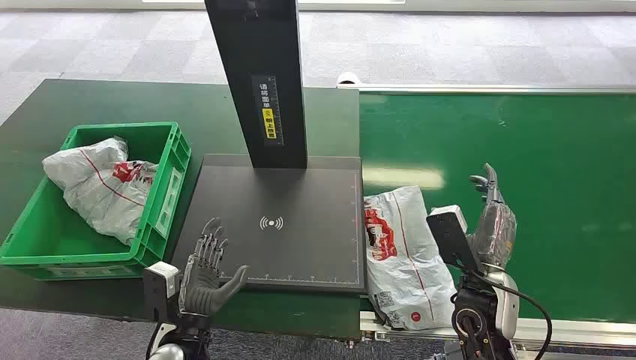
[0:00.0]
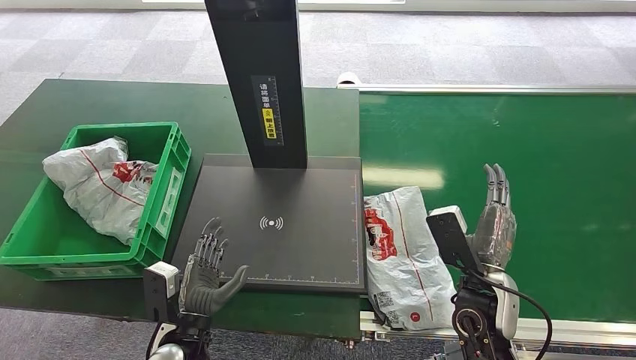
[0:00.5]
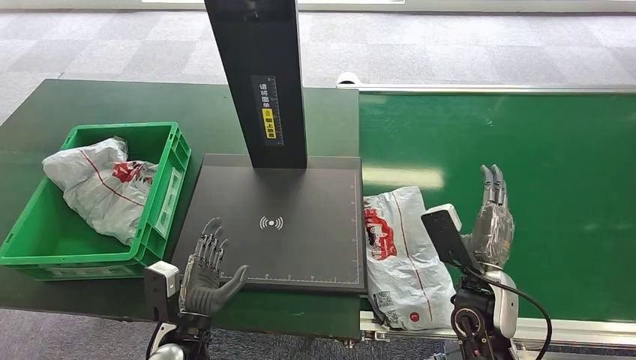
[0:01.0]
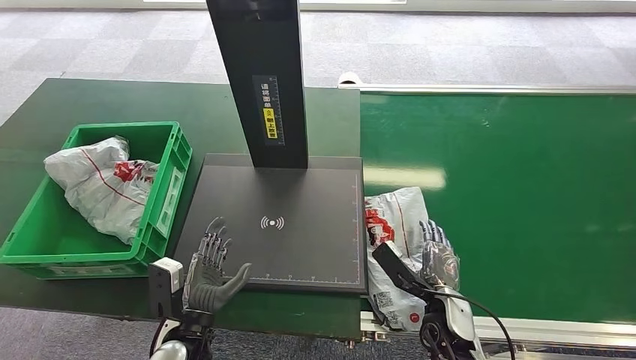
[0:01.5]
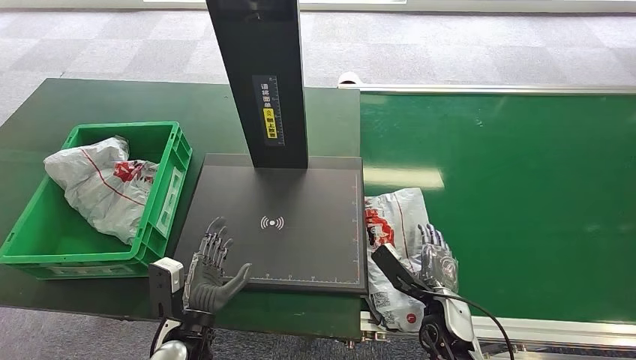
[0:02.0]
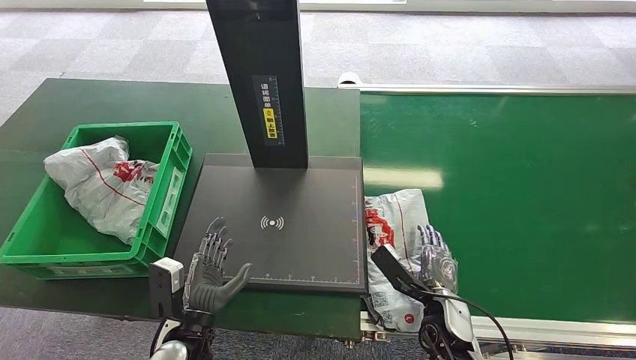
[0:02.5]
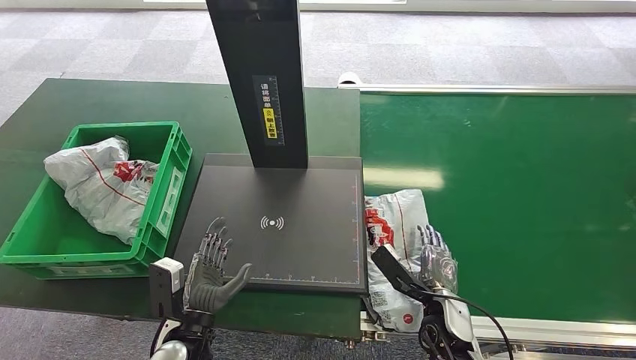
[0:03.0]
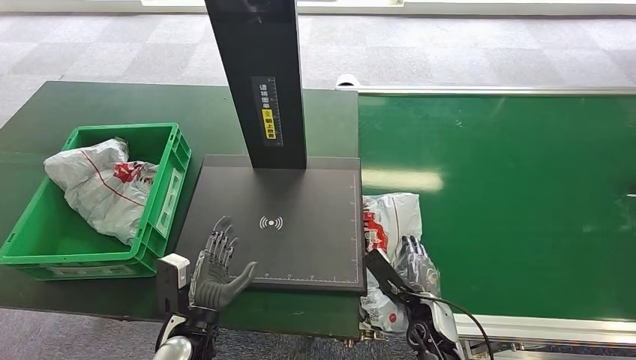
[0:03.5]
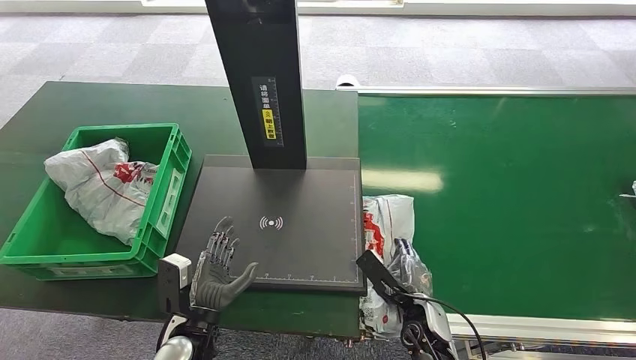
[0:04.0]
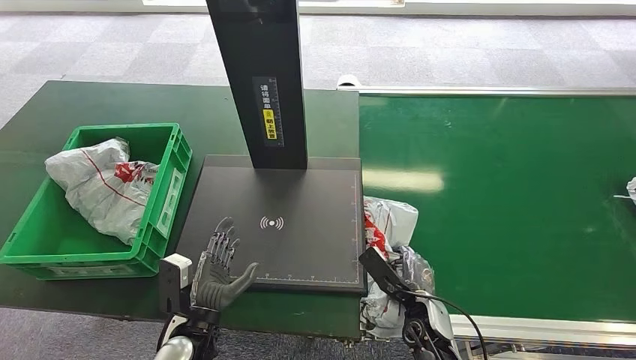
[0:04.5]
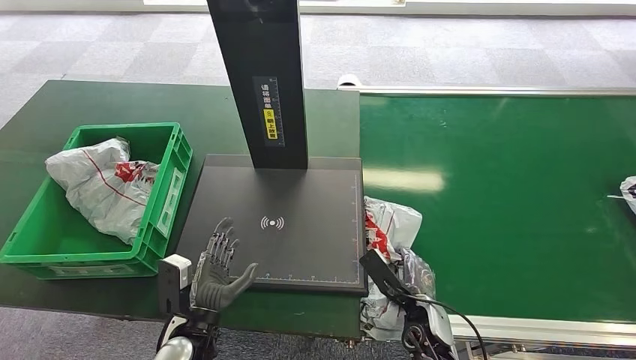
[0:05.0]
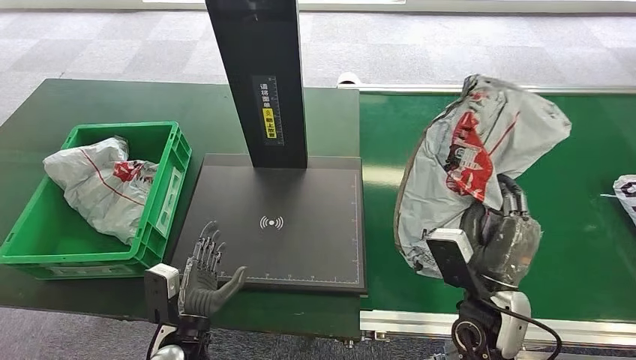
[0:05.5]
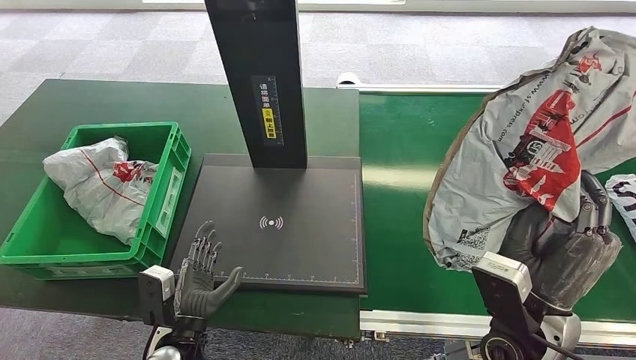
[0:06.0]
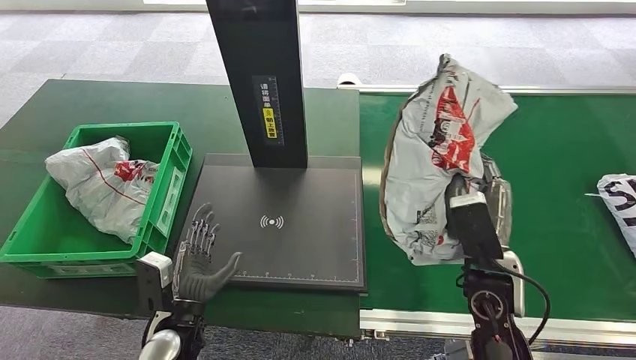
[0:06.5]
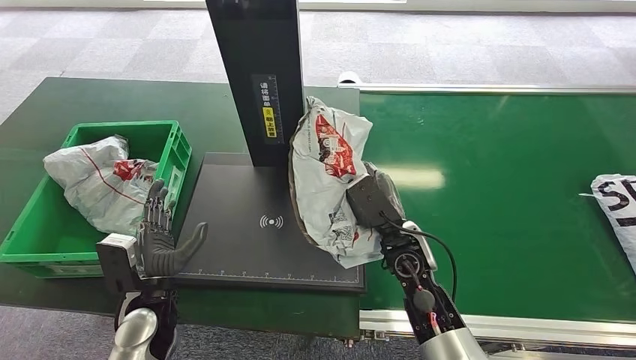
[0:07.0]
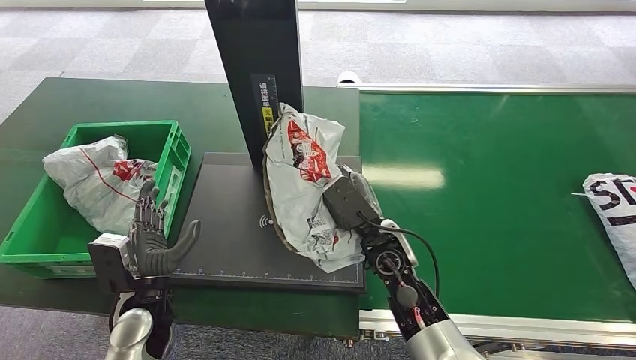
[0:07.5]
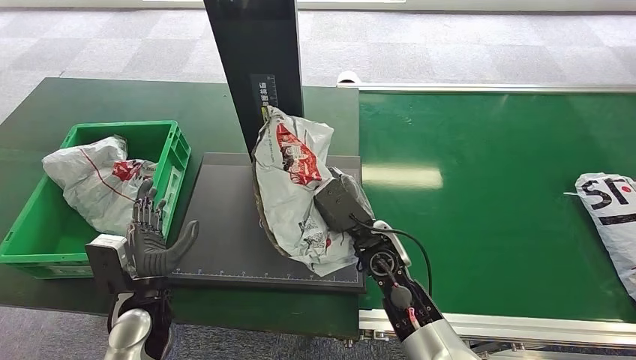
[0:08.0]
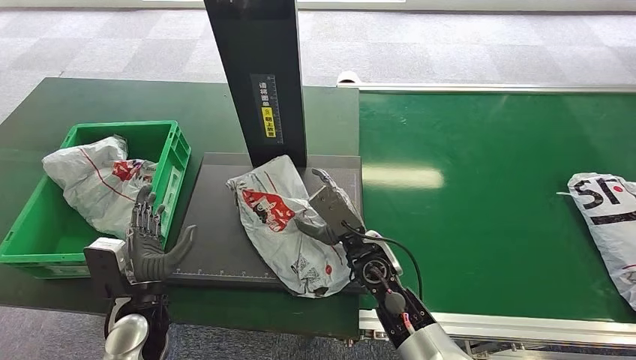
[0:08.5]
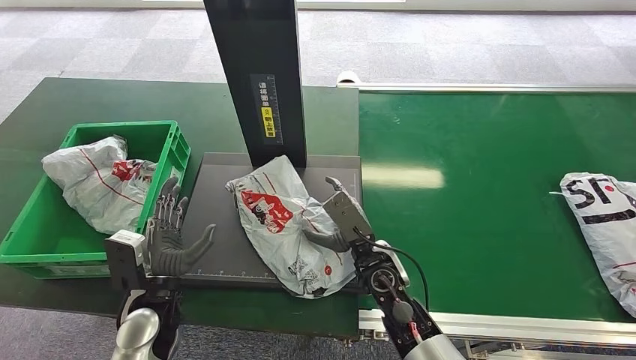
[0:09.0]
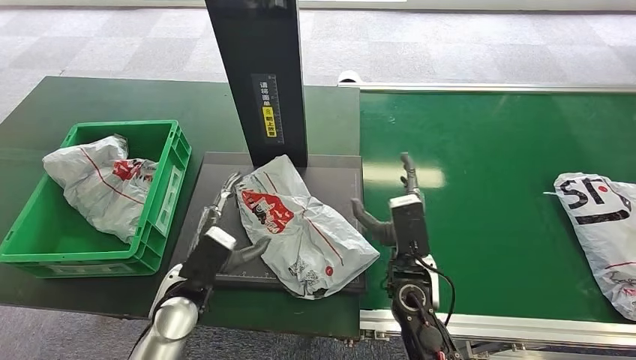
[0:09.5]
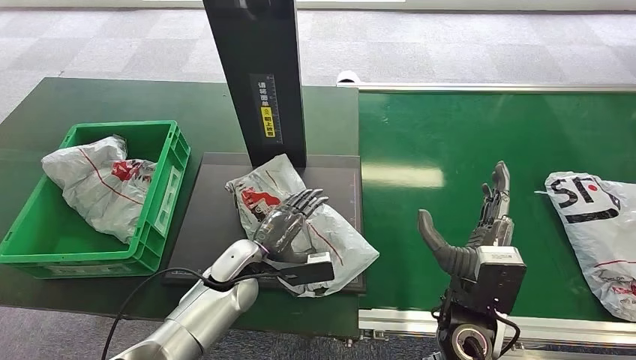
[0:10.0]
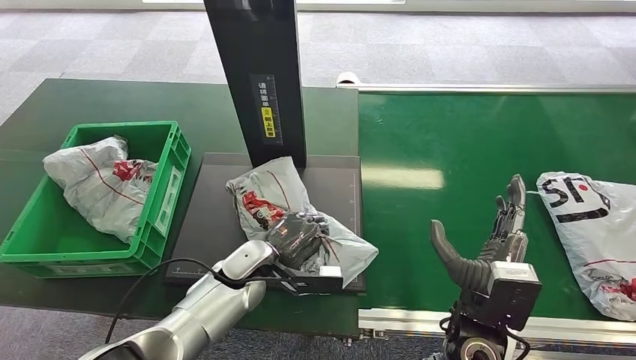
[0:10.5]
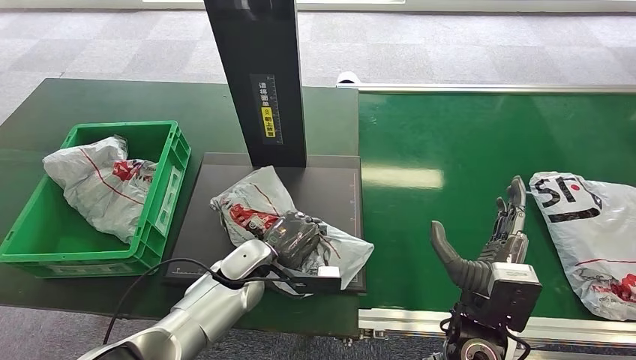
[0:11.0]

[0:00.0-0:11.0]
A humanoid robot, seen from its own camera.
Task of the whole recording: Weigh the package on the weighing device and place it in the left basket.
Step, 0:00.0 to 0:05.5: Pick up the package from the conveyor belt.
Step, 0:07.0 to 0:09.0: Place the package onto the inbound machine.
0:02.0 to 0:03.5: The hands make only small movements.
0:07.5 to 0:09.0: The hands make only small movements.

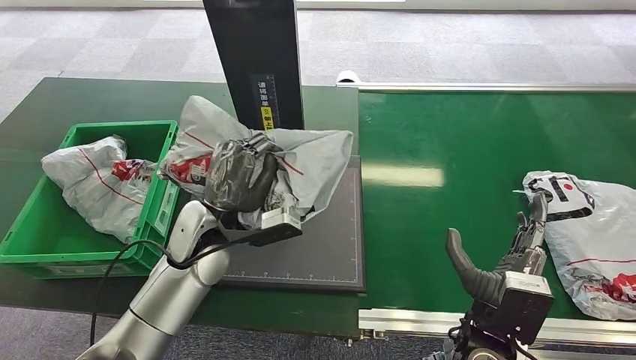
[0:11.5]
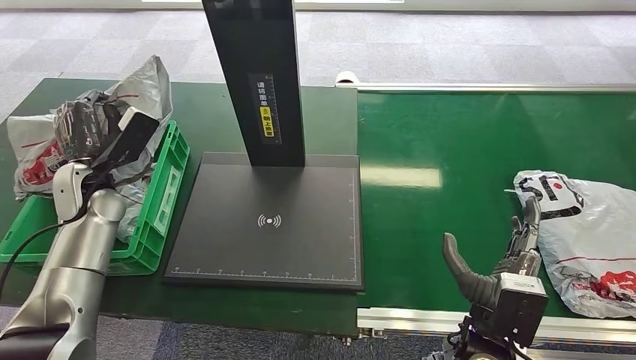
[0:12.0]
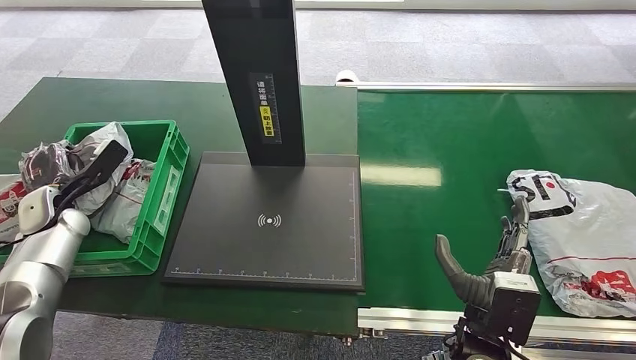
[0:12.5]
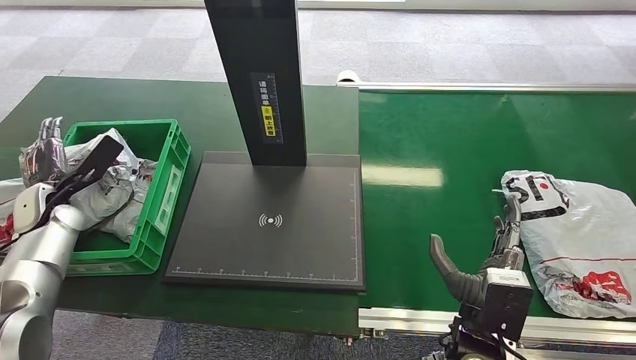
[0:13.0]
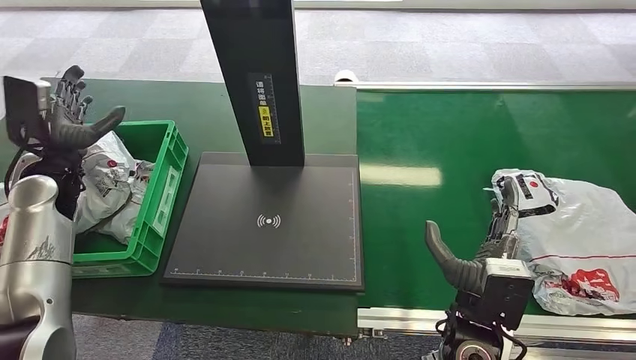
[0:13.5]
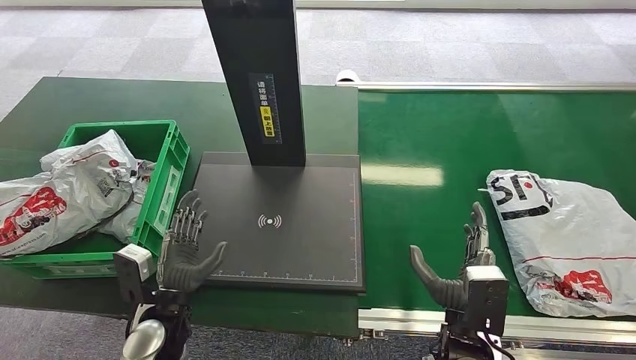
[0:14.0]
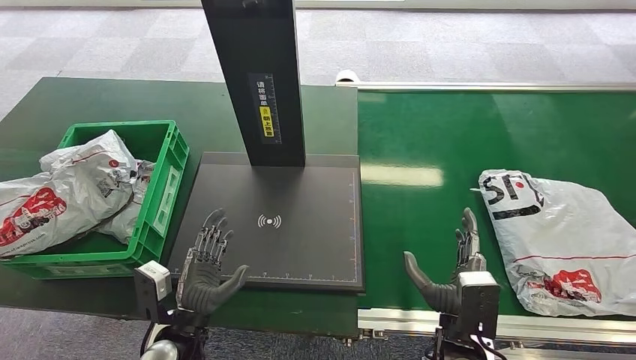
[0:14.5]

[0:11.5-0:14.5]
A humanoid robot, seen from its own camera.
Task of the whole recording: Weigh the package on the weighing device and place it in the left basket.
Step, 0:13.0 to 0:14.5: Place the package into the parcel locker.
0:13.0 to 0:14.5: The left hand is displaced to the right and backward by about 35 cm.
